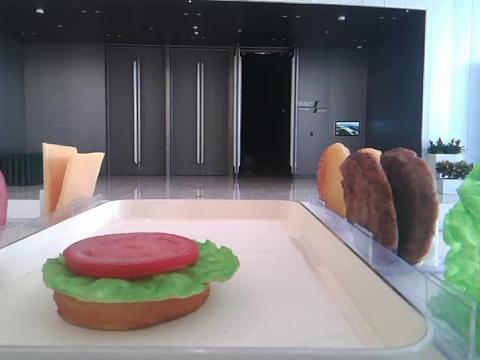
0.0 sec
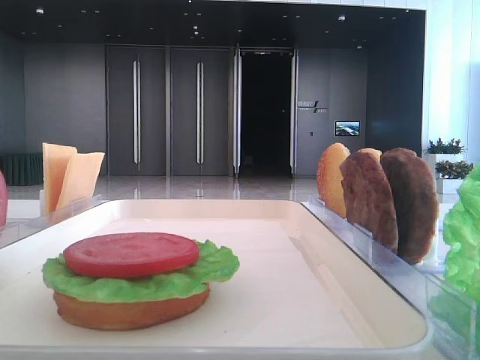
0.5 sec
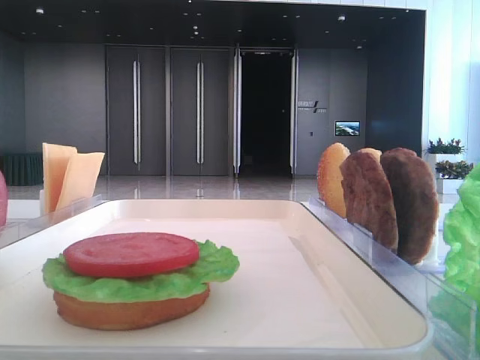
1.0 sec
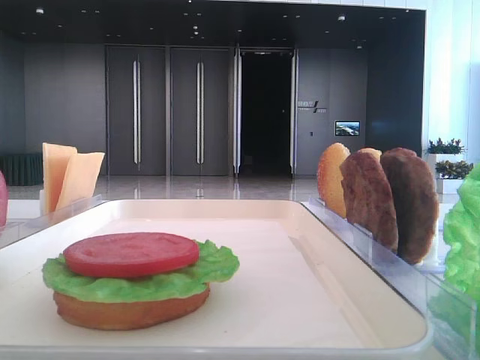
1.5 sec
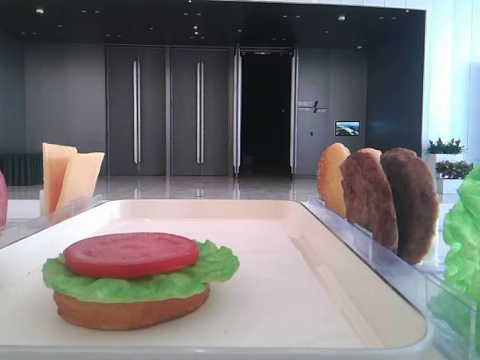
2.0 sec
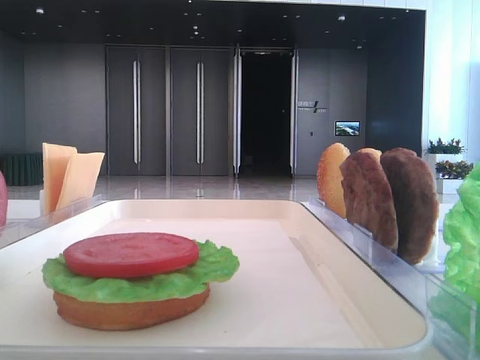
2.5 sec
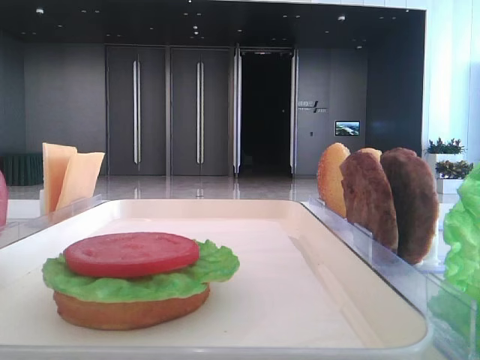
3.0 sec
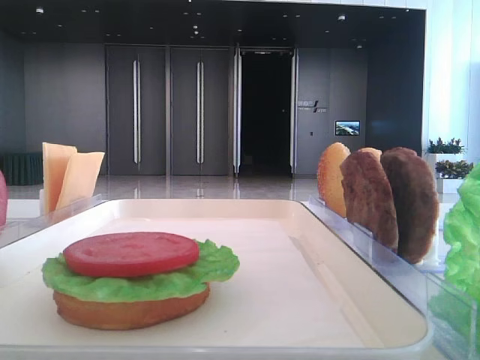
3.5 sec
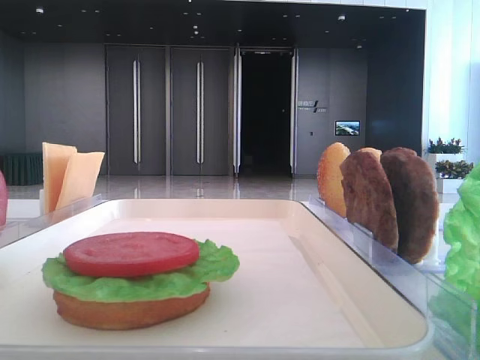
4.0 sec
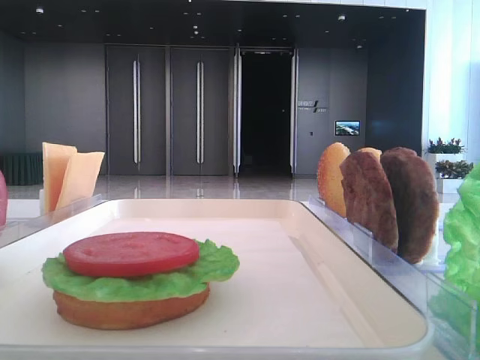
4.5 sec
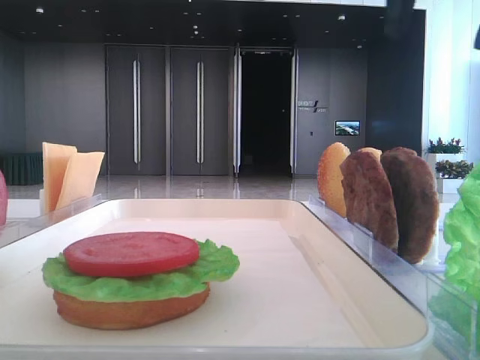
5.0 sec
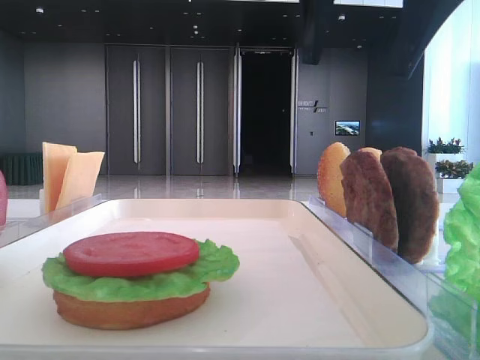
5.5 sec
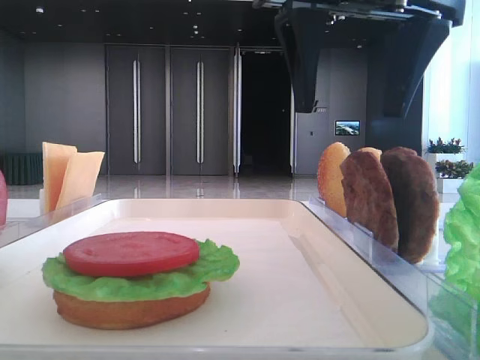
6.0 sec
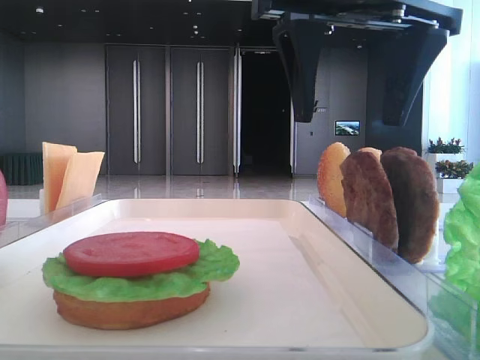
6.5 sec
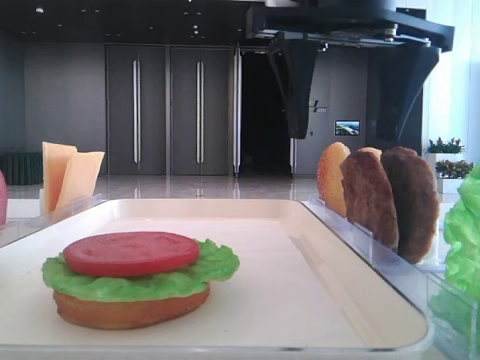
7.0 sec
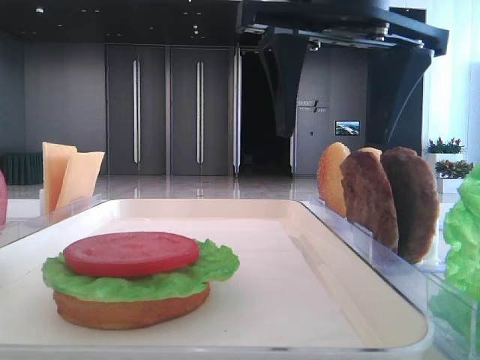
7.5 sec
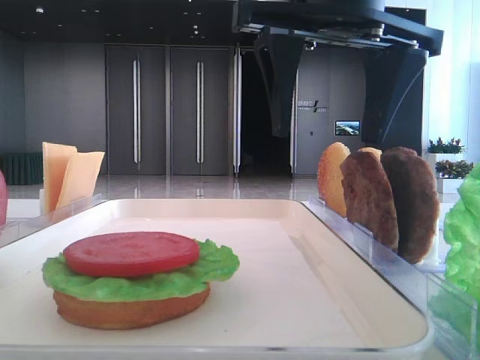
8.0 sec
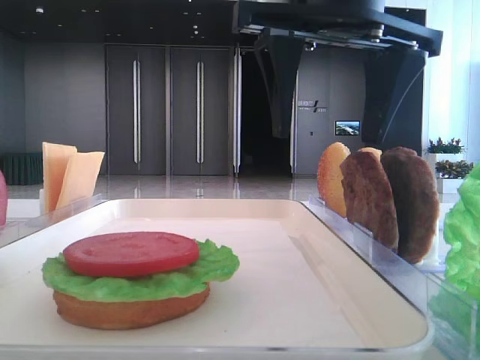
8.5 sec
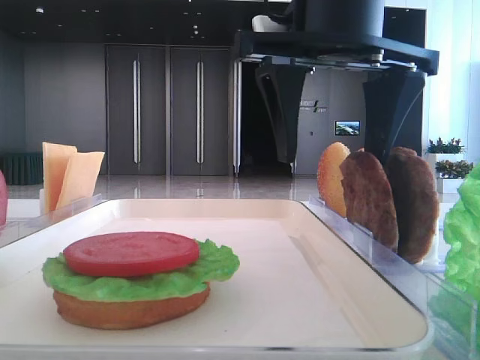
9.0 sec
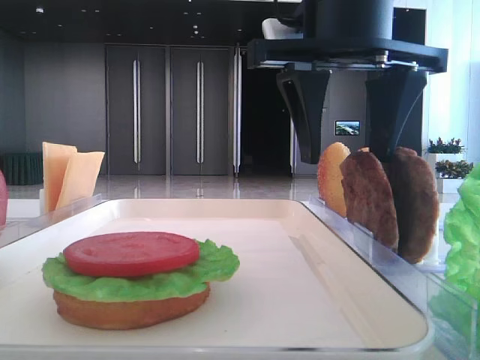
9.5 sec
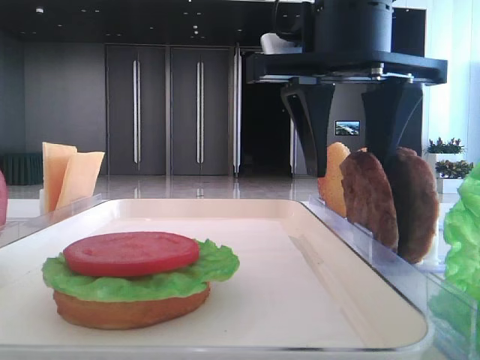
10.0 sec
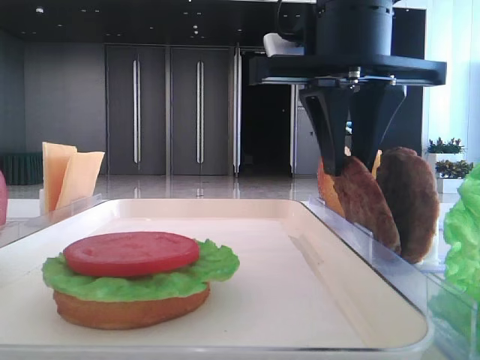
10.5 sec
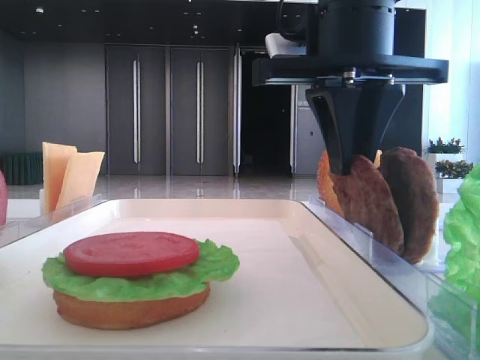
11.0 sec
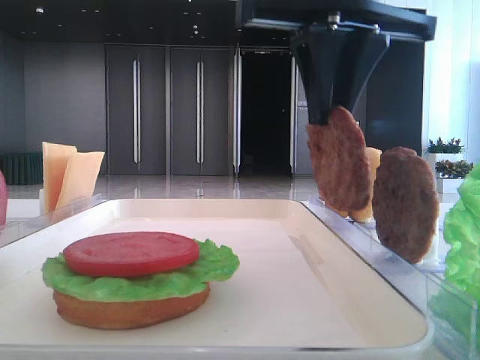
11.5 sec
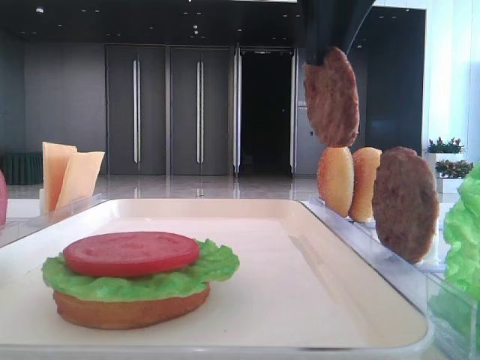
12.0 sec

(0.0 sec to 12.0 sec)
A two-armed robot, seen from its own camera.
Step, 0.0 sec - 11.0 sec: Grab the patty with the right hand.
4.0 sec - 6.0 sec: The right gripper heads to the left, covering some 20 cm.
6.0 sec - 10.0 sec: The grippers stay close to where they were, moving slightly.
10.0 sec - 12.0 sec: The right gripper heads upward, covering roughly 10 cm, and closes.

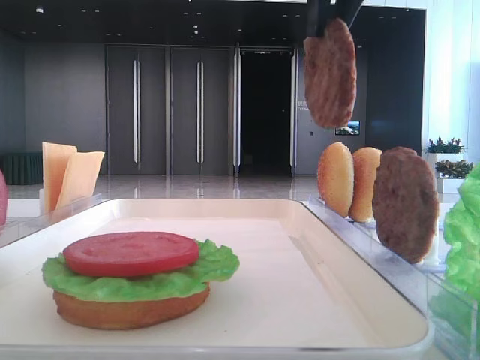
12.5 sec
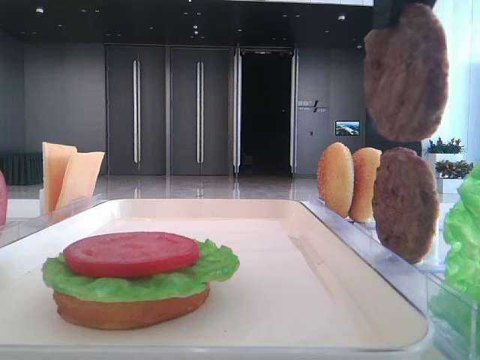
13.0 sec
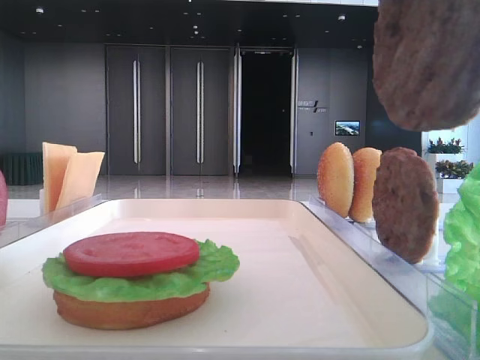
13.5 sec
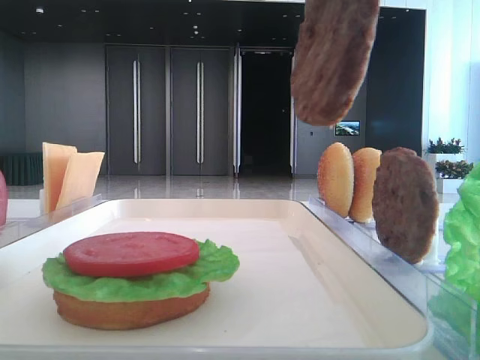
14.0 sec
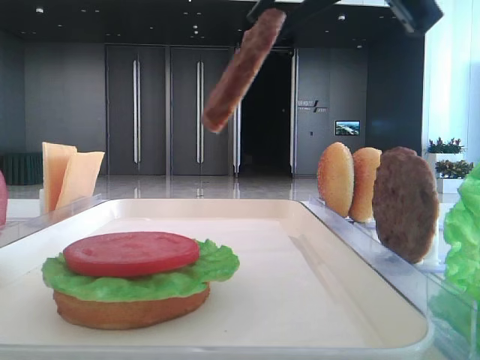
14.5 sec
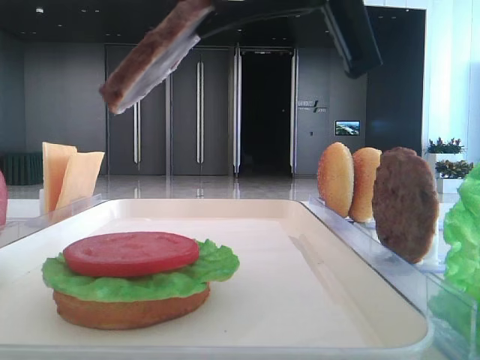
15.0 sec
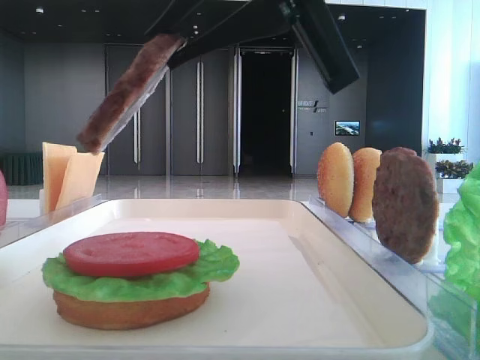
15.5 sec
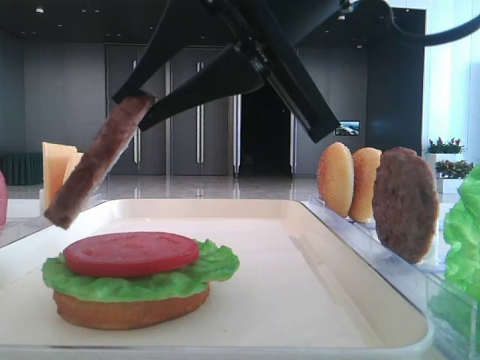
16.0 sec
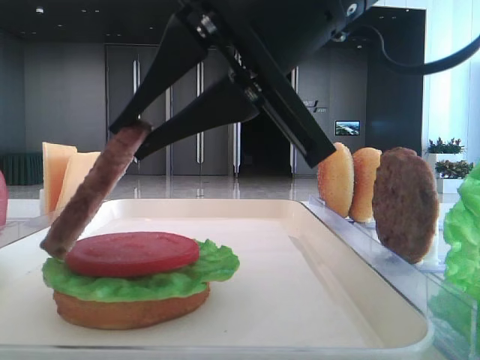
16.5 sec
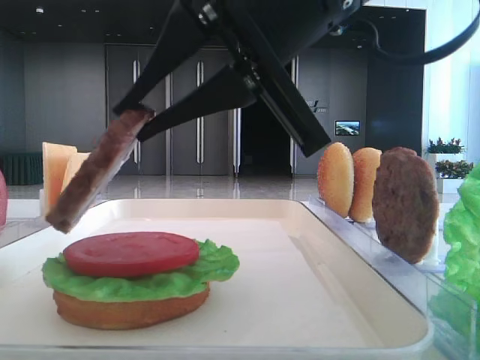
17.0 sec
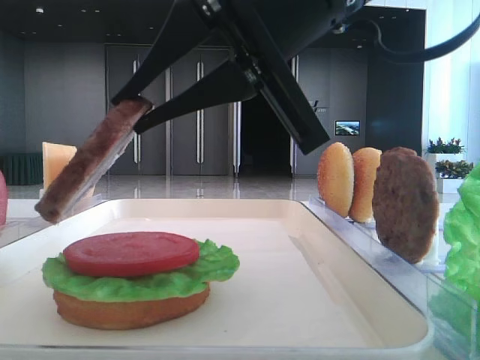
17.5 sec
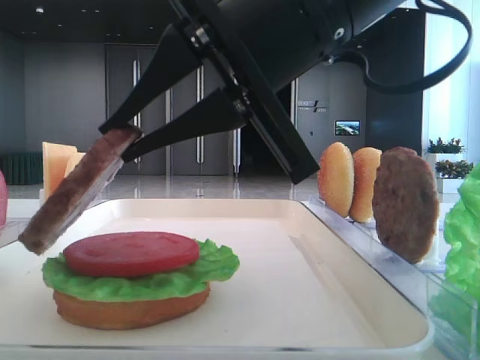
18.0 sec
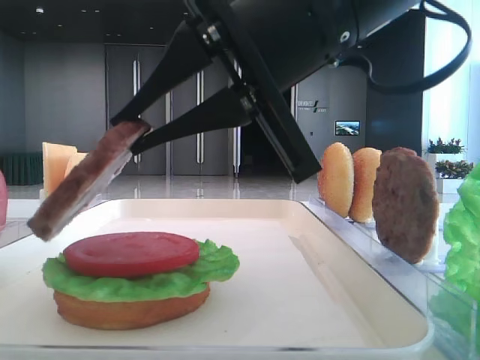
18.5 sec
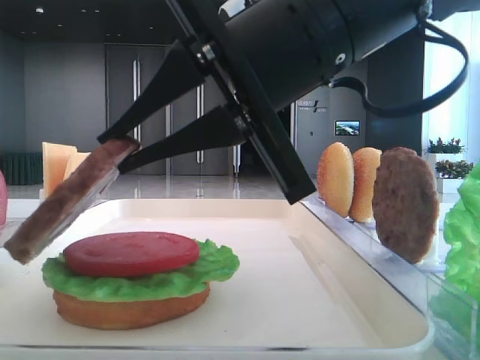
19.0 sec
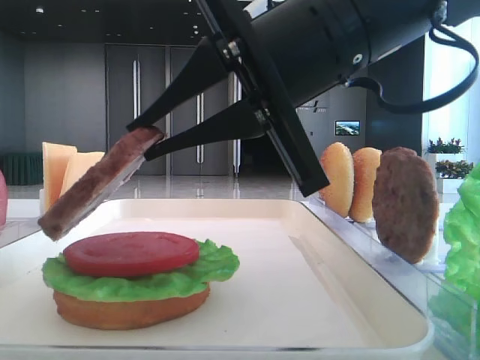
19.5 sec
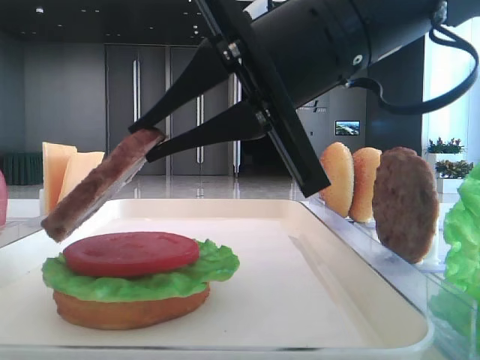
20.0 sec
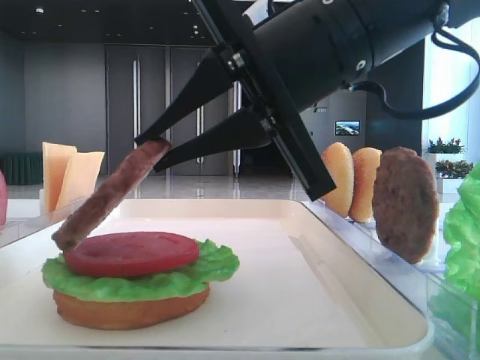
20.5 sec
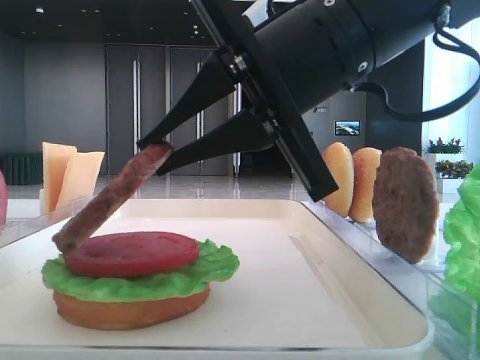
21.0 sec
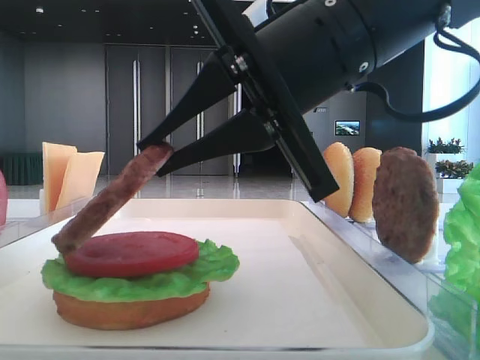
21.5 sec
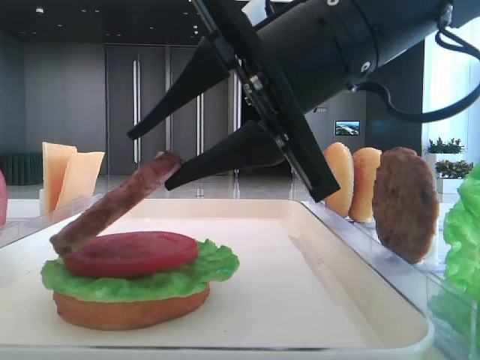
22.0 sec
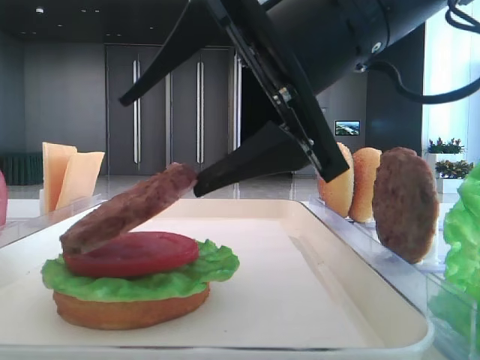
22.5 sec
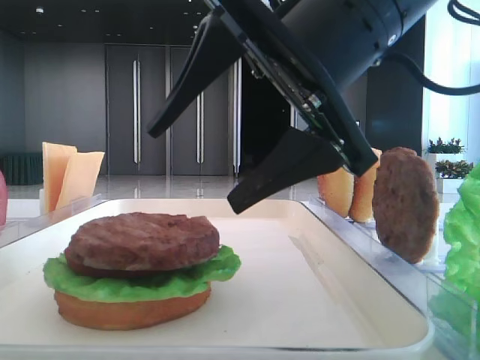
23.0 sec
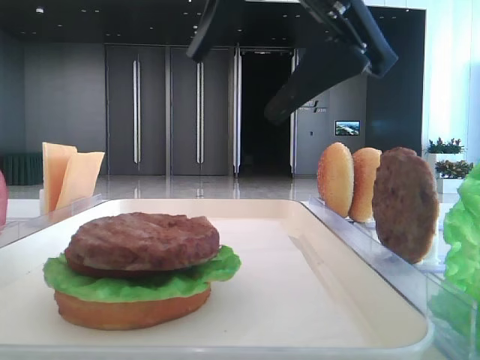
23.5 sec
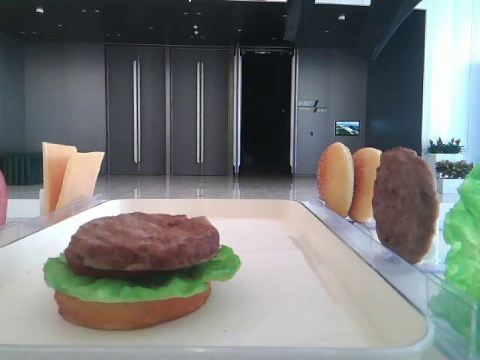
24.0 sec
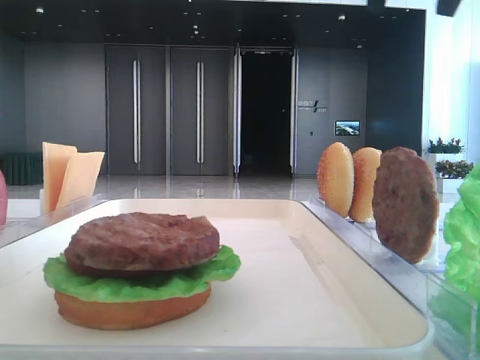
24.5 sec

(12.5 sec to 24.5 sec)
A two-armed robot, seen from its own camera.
Step, 12.5 sec - 22.5 sec: Place the patty on the tomato slice with the right hand.
12.5 sec - 14.5 sec: The right gripper travels backward and back again, about 10 cm each way.
14.5 sec - 16.5 sec: The right gripper goes roughly 10 cm downward and to the left.
16.5 sec - 20.5 sec: The grippers move only a little.
20.5 sec - 22.5 sec: The right gripper opens its fingers.
22.5 sec - 24.5 sec: The right gripper heads upward and to the right, covering roughly 20 cm.

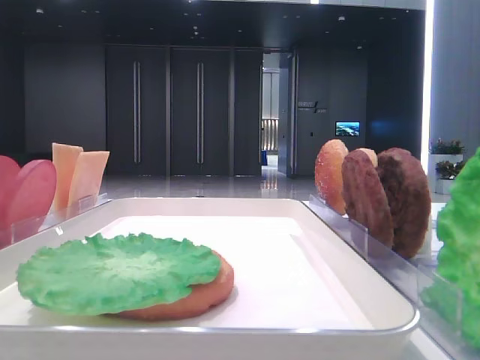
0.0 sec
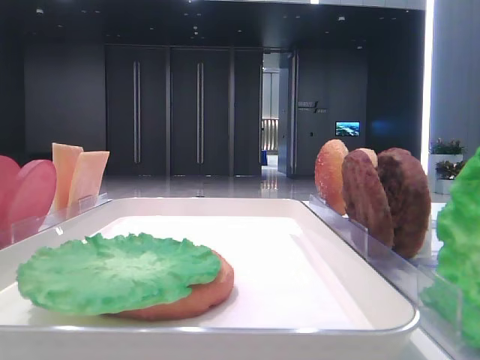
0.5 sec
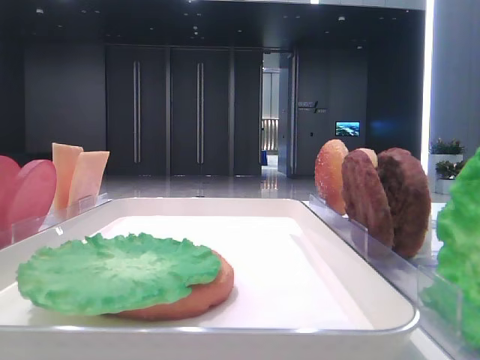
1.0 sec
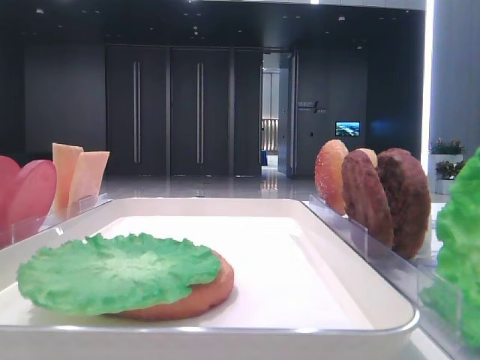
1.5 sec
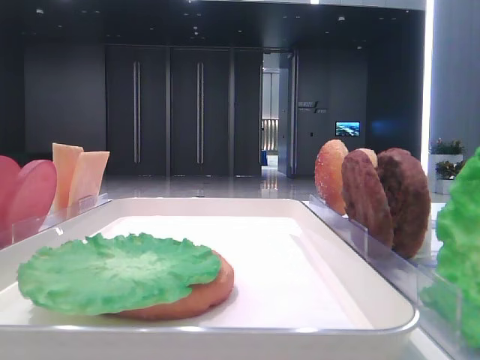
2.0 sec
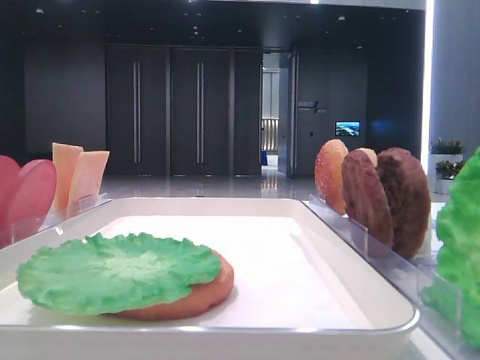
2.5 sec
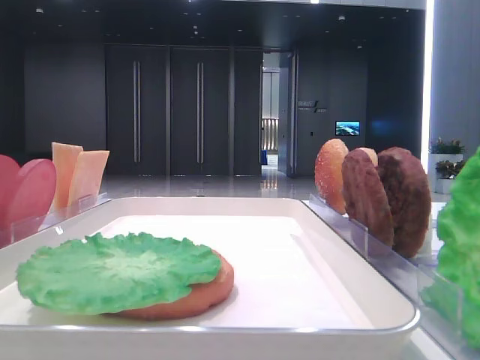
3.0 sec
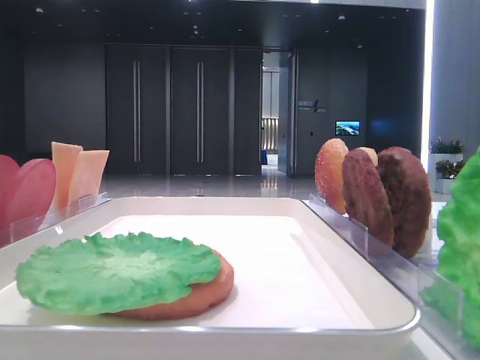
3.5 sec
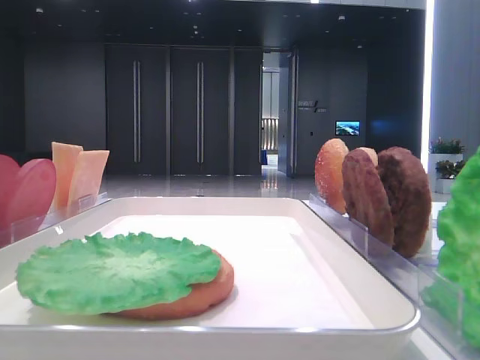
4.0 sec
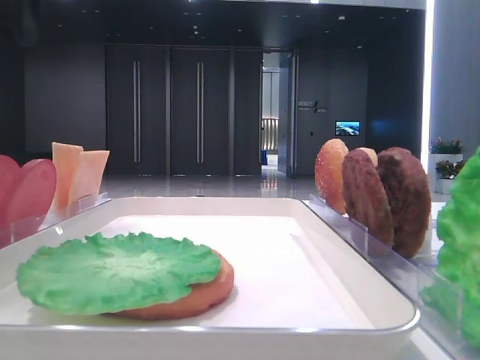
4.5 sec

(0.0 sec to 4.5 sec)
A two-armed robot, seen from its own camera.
2.0 sec - 4.5 sec: The left gripper is displaced forward by roughly 20 cm.
